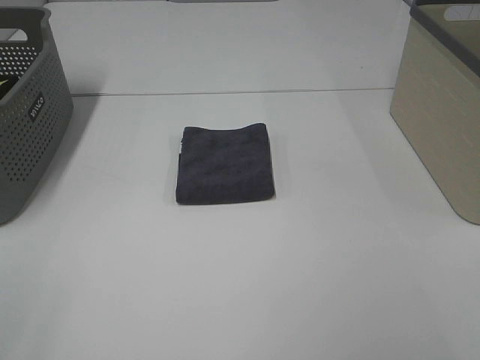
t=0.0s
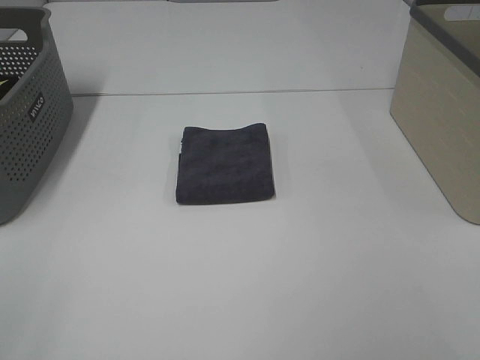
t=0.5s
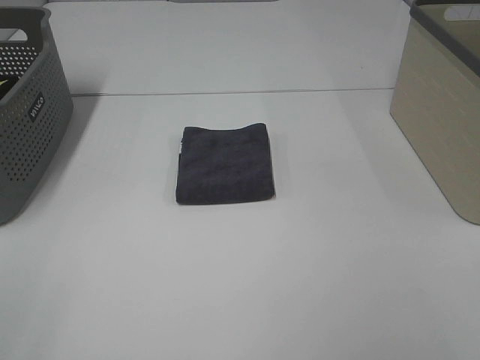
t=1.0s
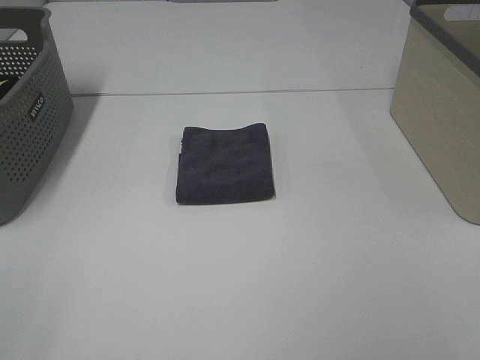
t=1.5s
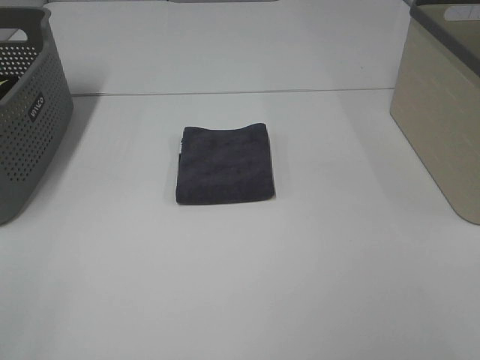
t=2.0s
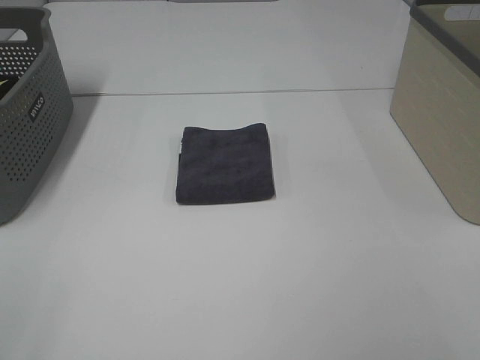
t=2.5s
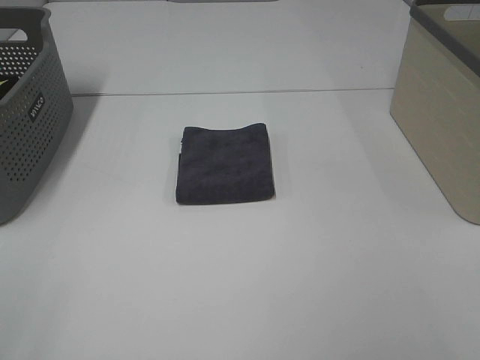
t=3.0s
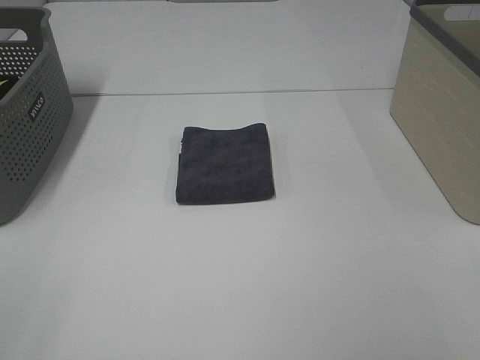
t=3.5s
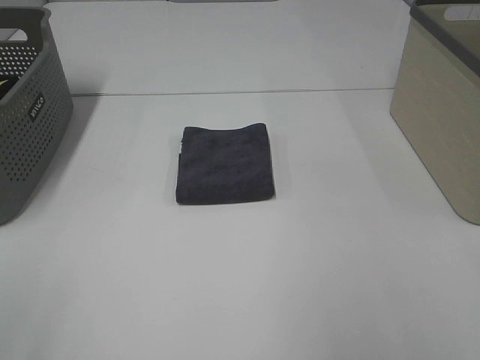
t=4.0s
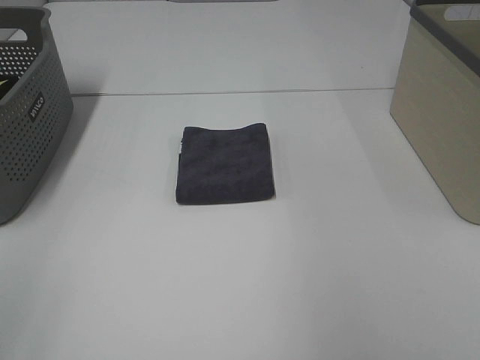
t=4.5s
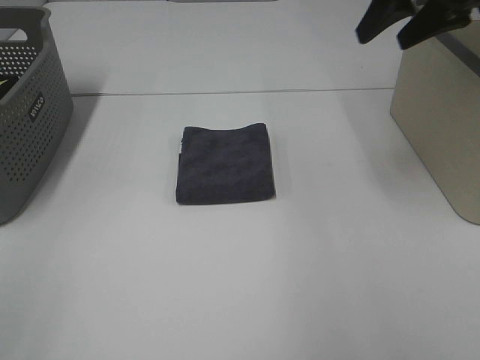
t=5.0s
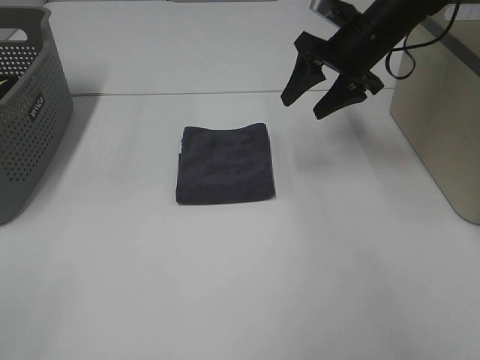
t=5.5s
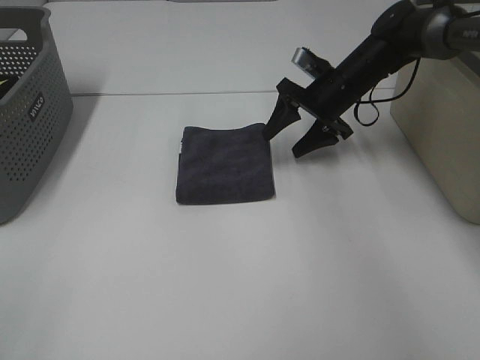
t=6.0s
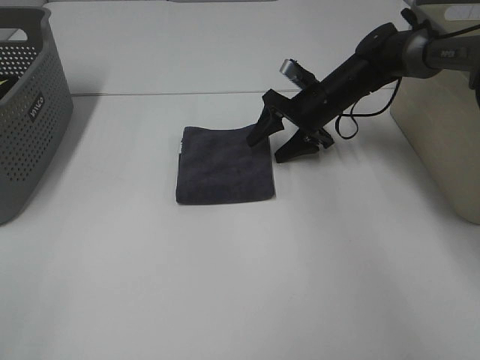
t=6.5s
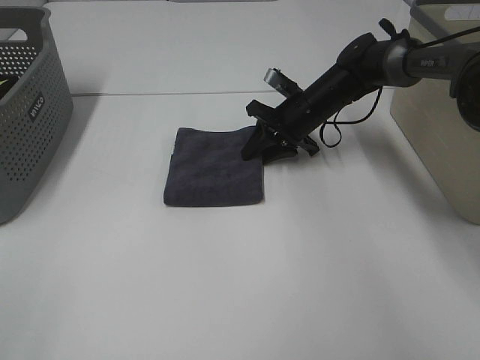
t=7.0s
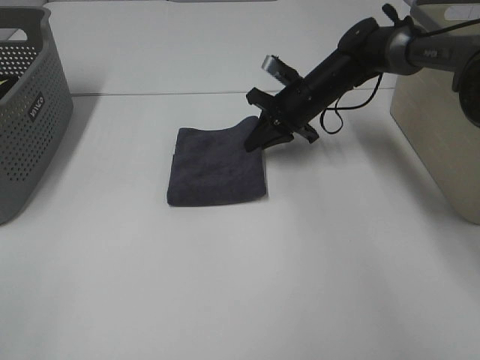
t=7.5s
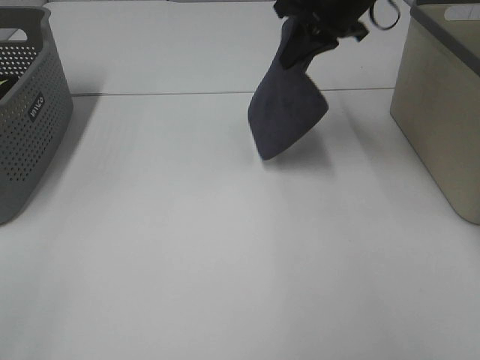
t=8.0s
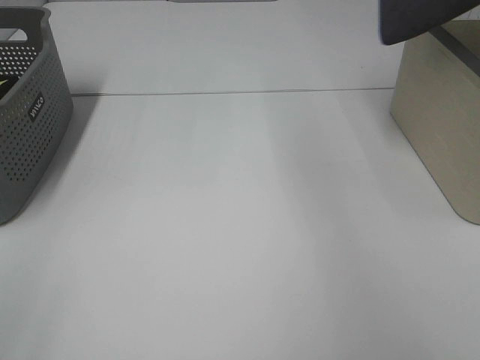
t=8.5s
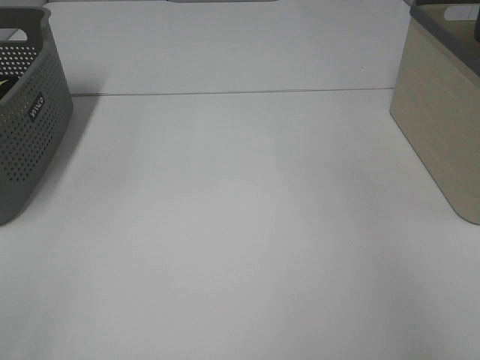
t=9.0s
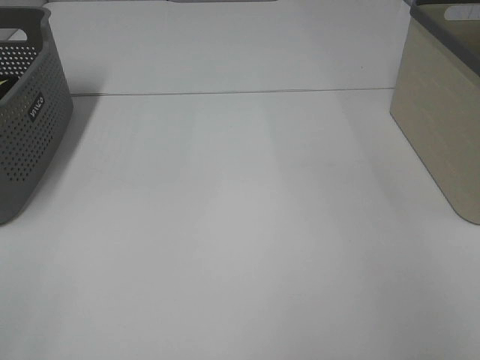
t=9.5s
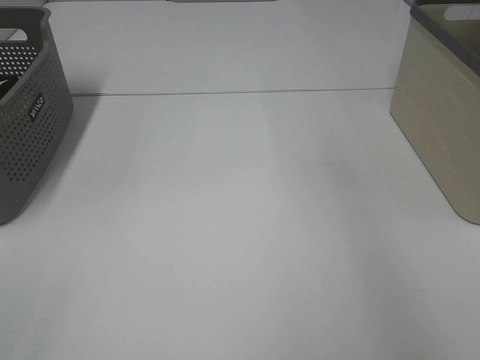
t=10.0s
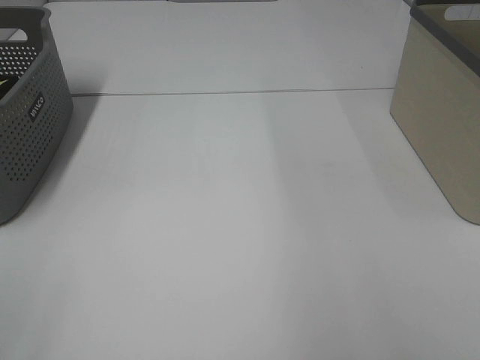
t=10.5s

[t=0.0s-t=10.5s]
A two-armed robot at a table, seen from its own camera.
Step, t=0.0s to t=7.0s: Right hand: grab the folded grey towel.
Step, t=7.5s to t=9.5s: Right hand: place the grey towel in right basket.
t=0.0s to t=2.0s: Both grippers stay put.
t=4.0s to t=6.5s: The right gripper moves forward and downward, about 50 cm.
t=6.5s to t=8.5s: The right gripper goes approximately 40 cm upward and to the right, and closes.
t=8.5s to t=10.5s: The right gripper moves roughly 10 cm to the right and comes back, and opens its fingers.

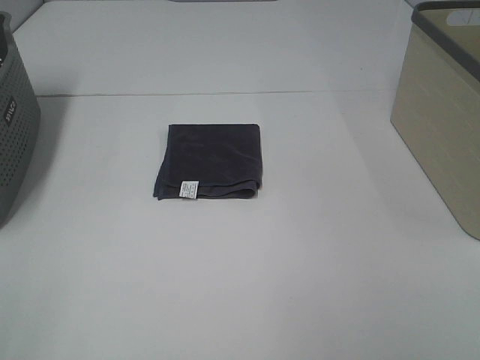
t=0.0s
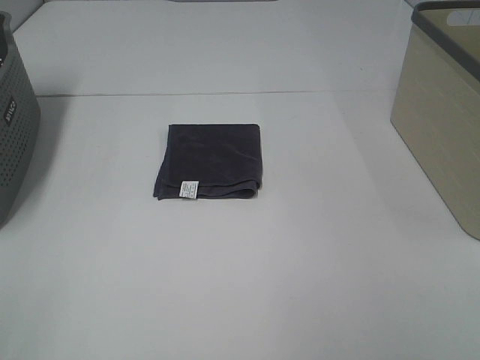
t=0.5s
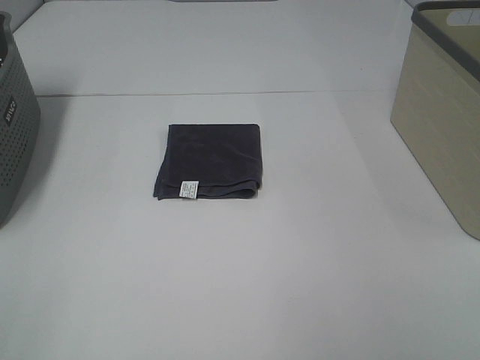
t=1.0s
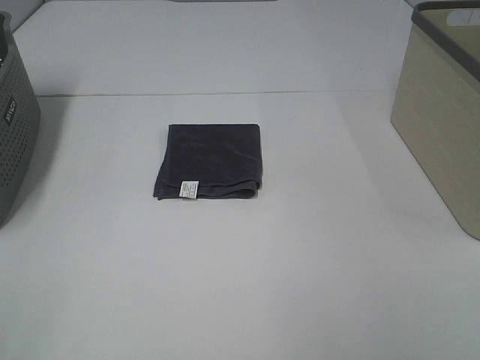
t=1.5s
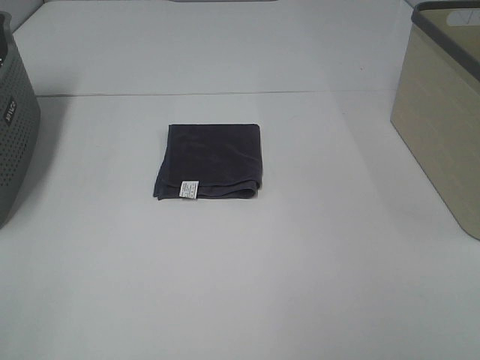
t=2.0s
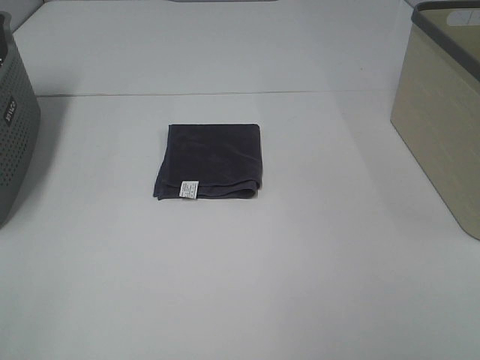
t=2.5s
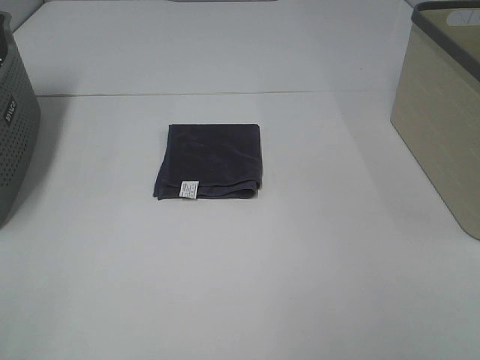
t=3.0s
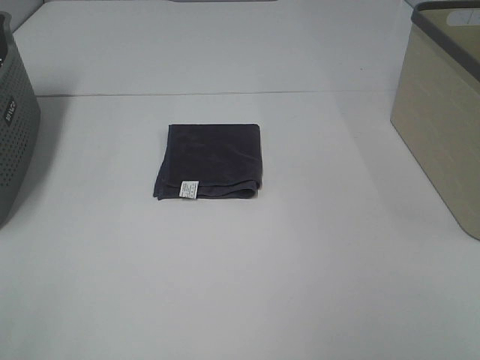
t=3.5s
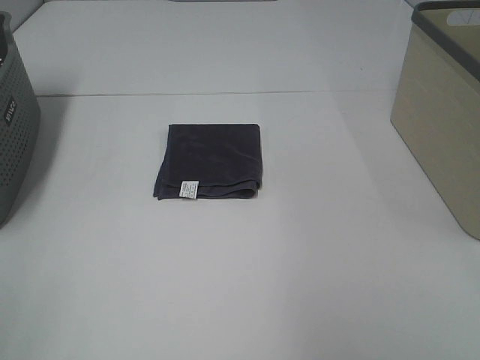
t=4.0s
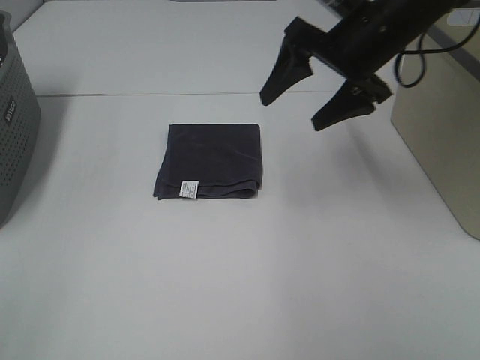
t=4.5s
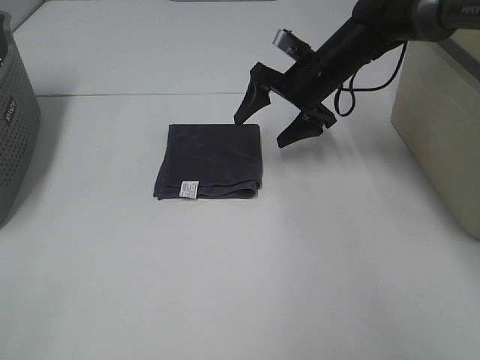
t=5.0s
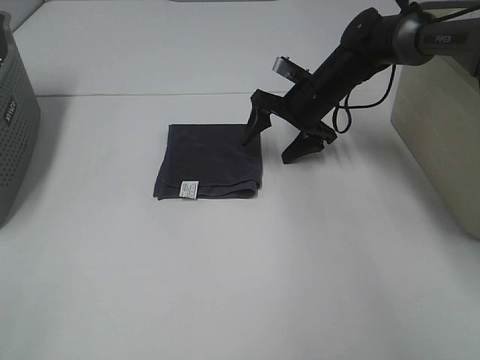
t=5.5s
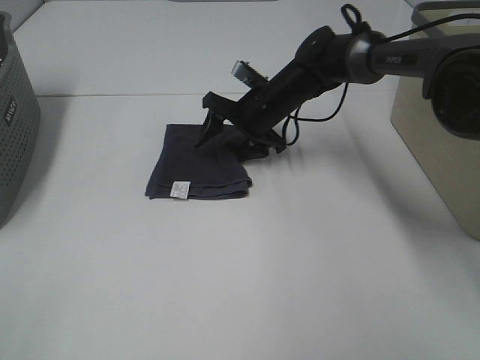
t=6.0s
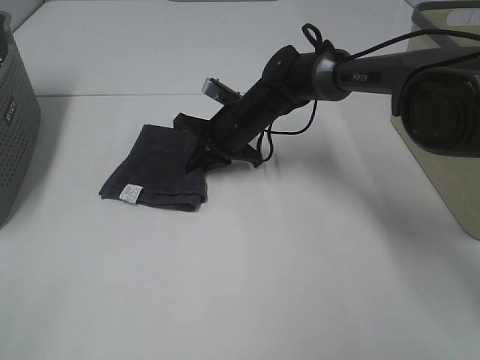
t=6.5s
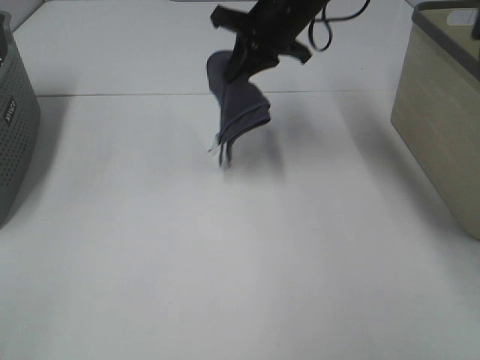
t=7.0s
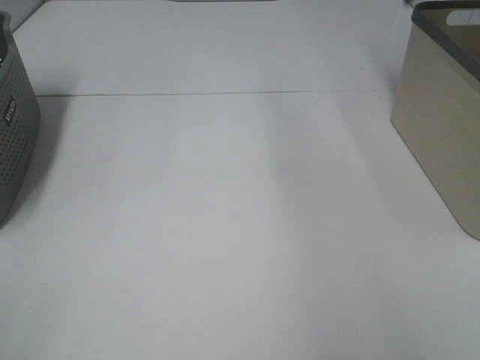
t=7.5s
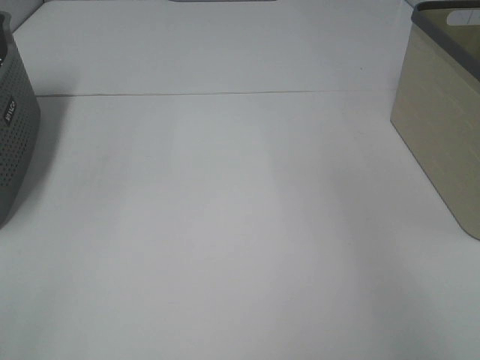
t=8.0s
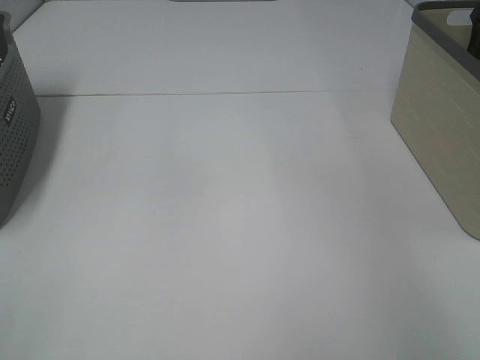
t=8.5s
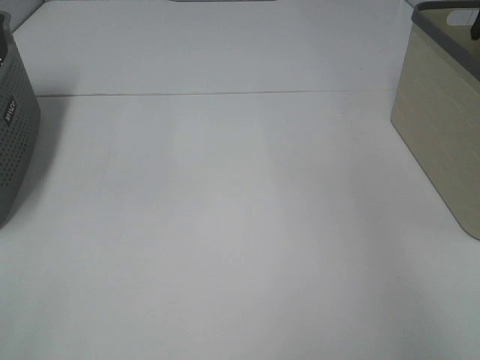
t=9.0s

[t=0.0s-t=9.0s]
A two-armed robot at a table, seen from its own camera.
Step, t=0.0s to t=6.0s: Right hand: grab the folded grey towel.
Step, t=6.5s to t=8.5s: Right hand: place the grey towel in right basket.
t=0.0s to t=2.0s: Both grippers stay about where they are.
t=2.0s to t=4.5s: The right gripper moves forward, about 40 cm.
t=4.5s to t=7.0s: The right gripper is displaced forward and to the left by some 10 cm, goes downward and returns, roughly 15 cm each way, and closes its fingers.
t=7.0s to t=9.0s: The right gripper travels to the right by approximately 30 cm, and opens its fingers.

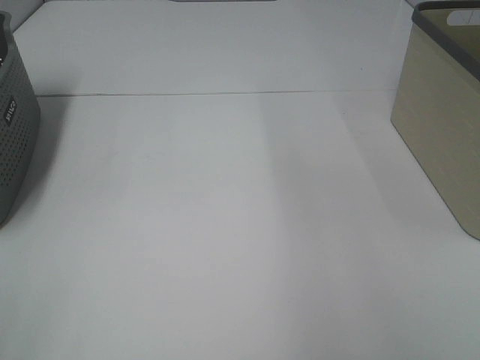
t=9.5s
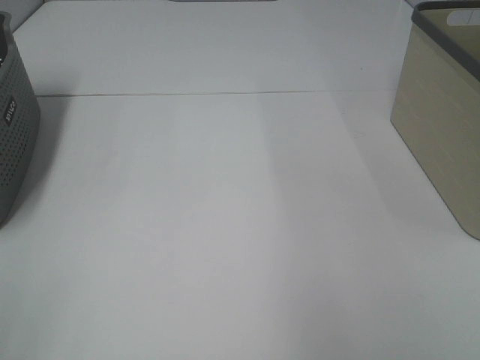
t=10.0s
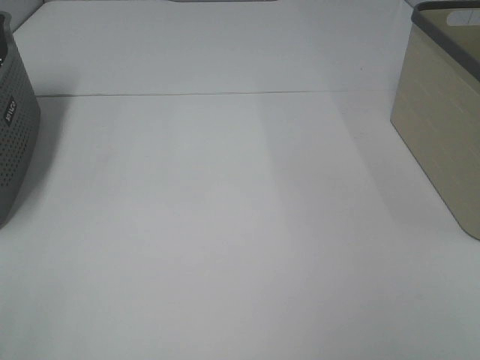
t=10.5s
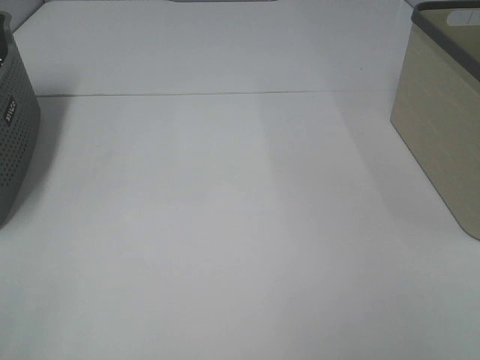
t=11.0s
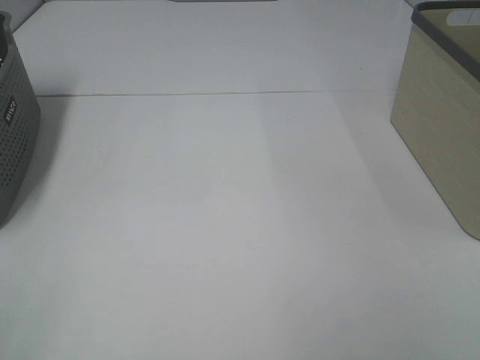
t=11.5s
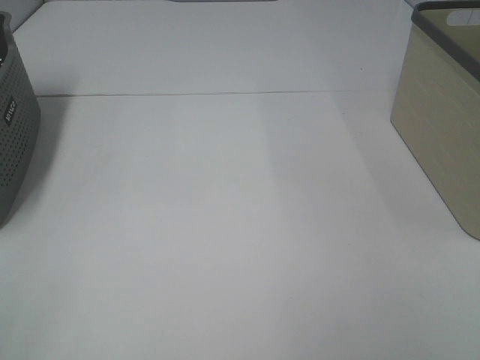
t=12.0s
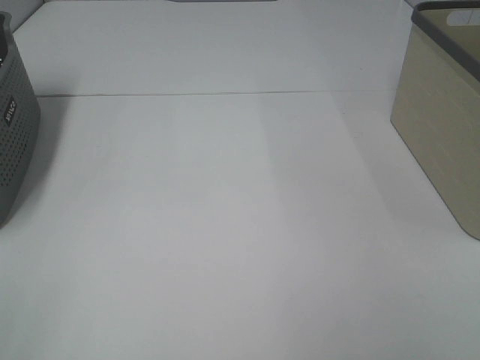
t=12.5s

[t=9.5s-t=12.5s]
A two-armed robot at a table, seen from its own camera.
t=11.0s to t=12.5s: The two grippers keep their place.

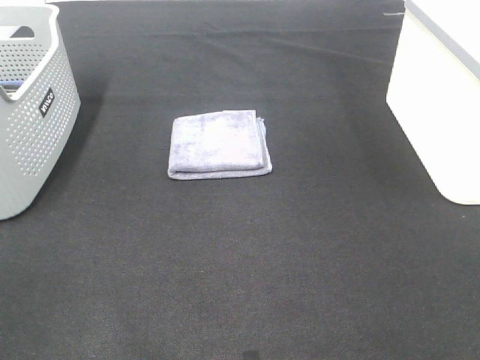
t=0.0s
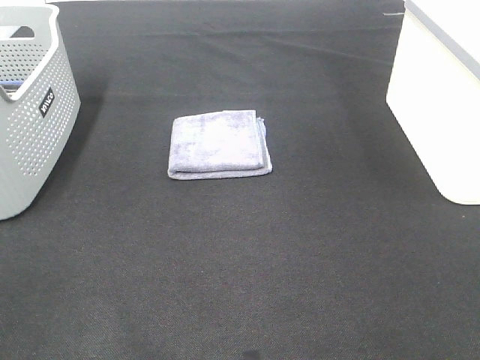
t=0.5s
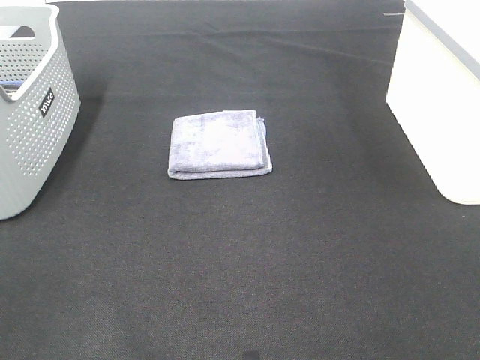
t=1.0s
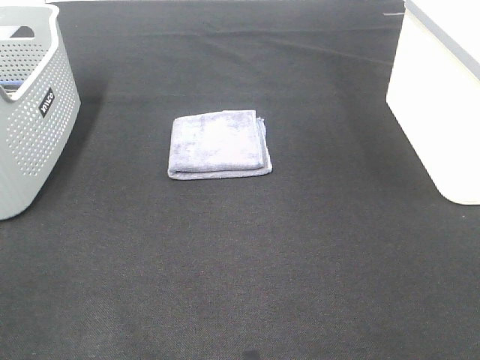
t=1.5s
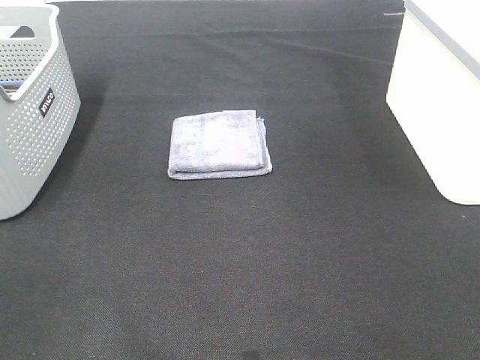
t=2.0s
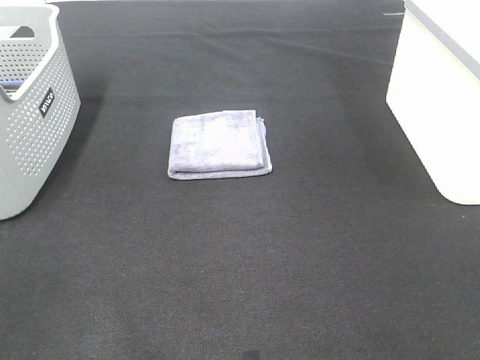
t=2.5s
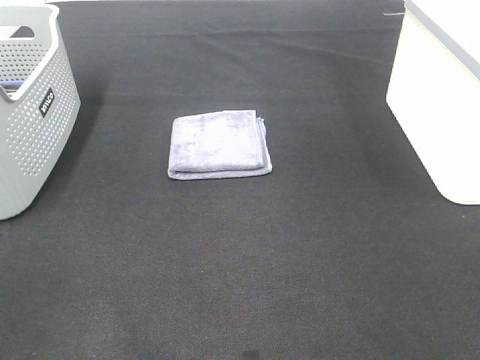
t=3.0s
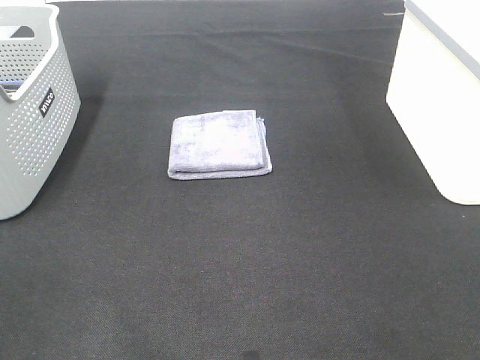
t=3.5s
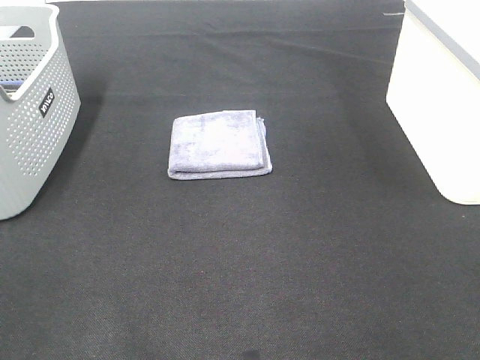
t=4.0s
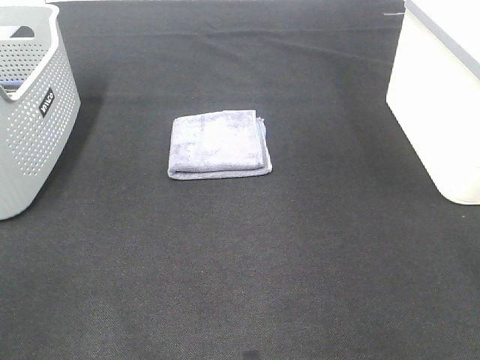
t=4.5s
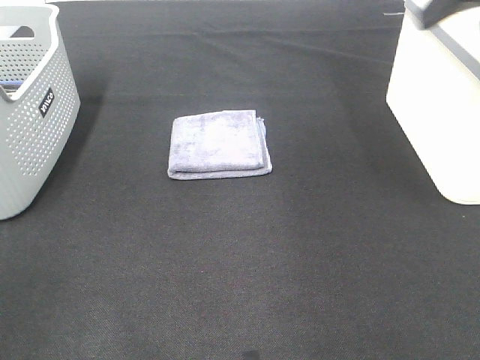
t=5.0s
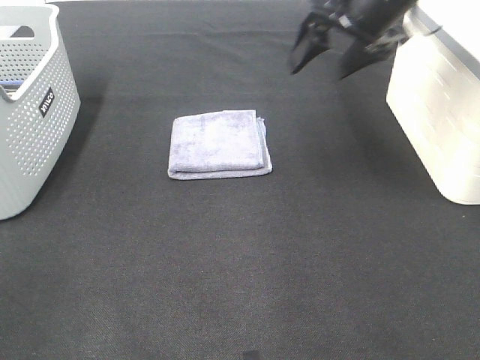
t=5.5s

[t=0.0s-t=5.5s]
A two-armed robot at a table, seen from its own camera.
t=0.0s to t=3.5s: Both grippers stay put.
t=3.5s to t=5.5s: The right gripper is displaced forward by some 40 cm.
